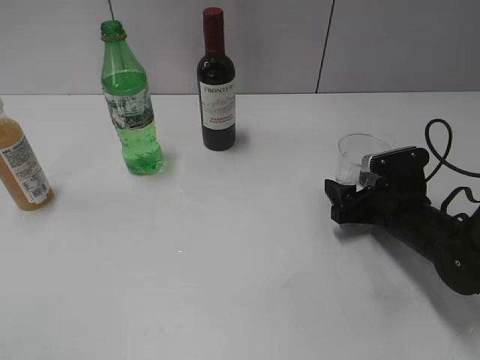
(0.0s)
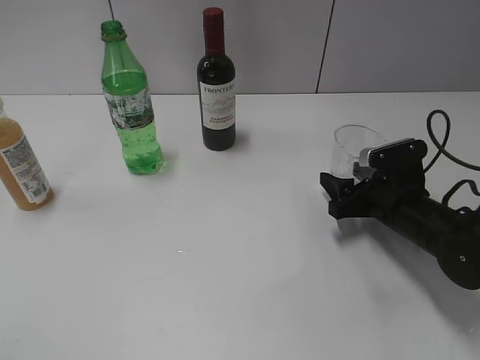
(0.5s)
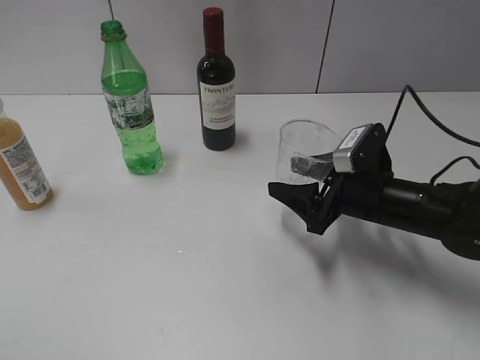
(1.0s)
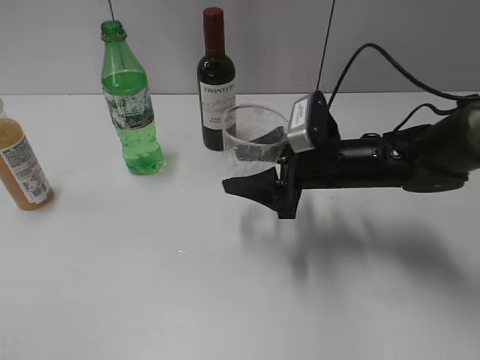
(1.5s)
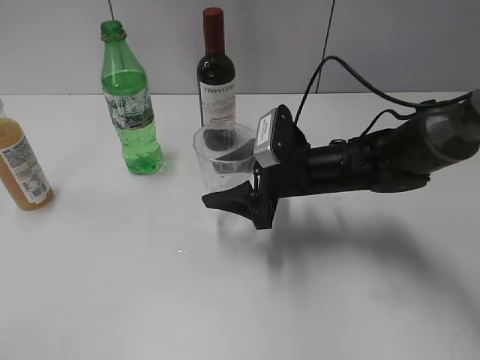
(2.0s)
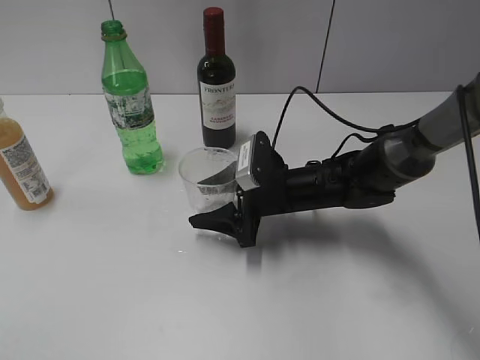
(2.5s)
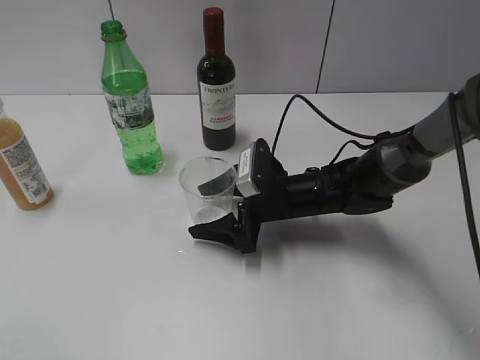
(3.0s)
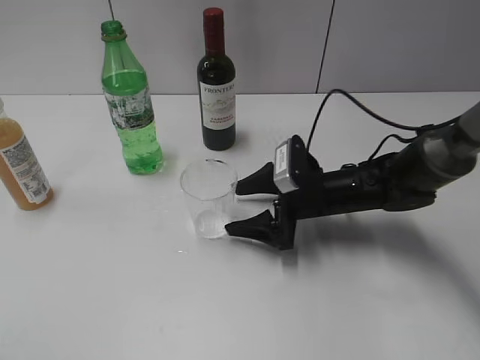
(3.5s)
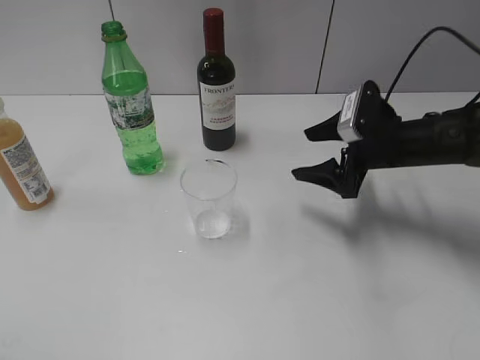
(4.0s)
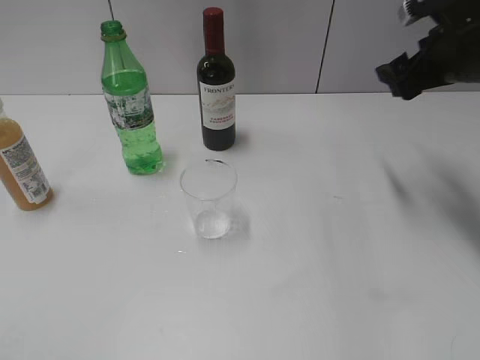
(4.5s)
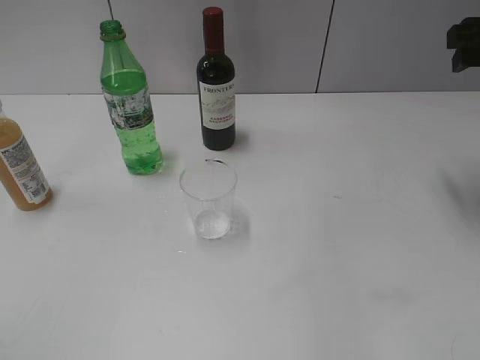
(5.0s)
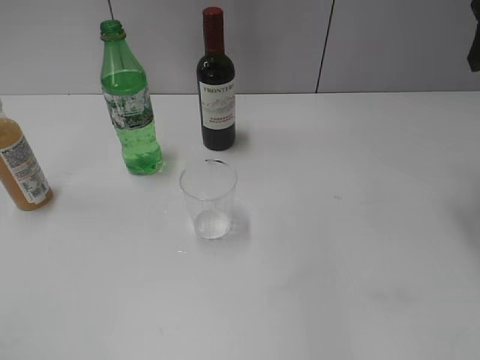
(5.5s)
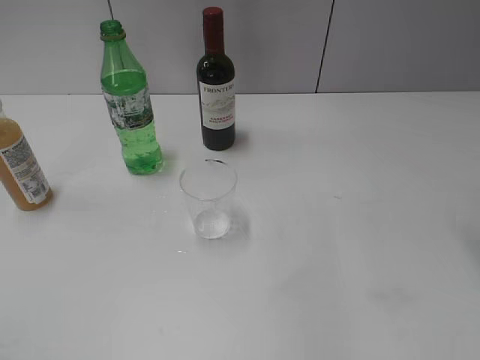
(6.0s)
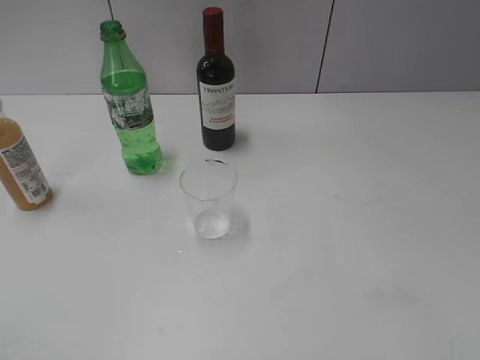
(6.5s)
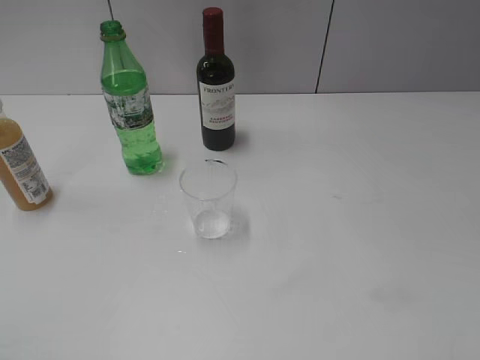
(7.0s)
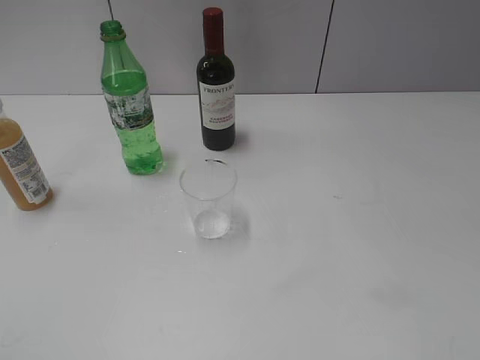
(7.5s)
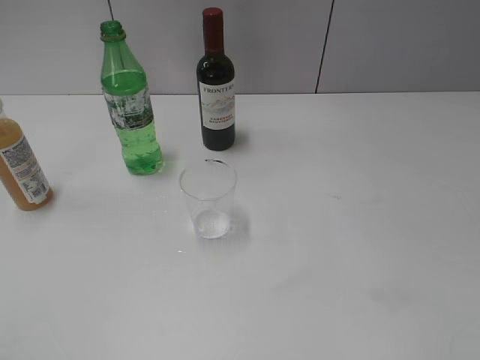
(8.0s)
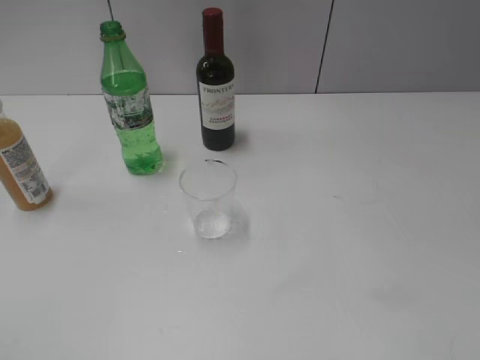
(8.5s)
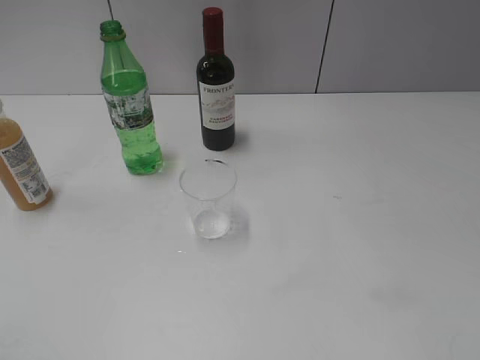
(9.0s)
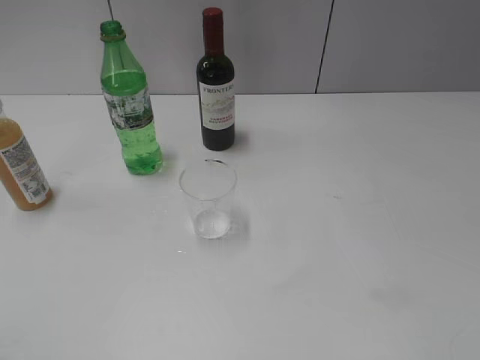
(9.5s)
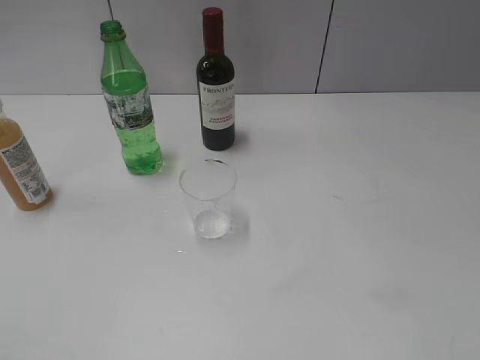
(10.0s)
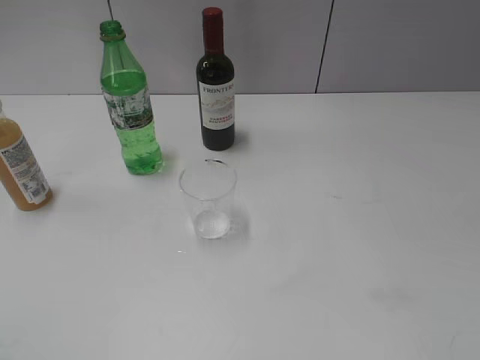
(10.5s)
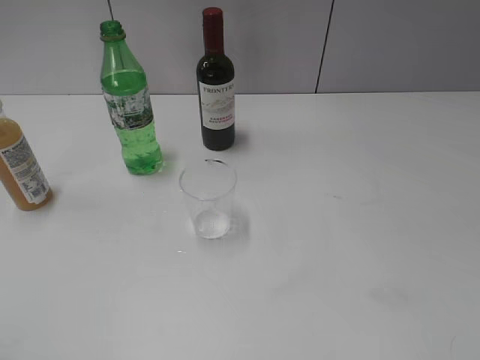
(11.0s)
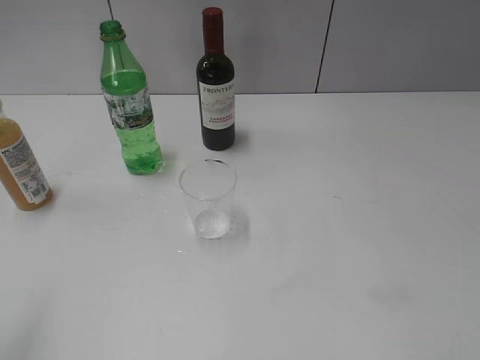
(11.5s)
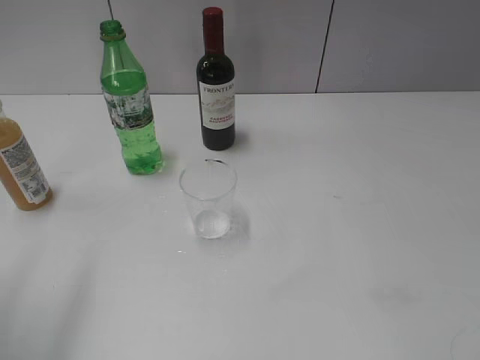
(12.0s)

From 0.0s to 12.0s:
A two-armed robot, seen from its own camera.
Step, from 0.5s to 3.5s: Place the transparent cup on the table with right gripper.
From 0.0s to 2.0s: The right gripper goes about 15 cm to the left and upward.
From 2.0s to 4.0s: The right gripper is displaced to the right by some 10 cm, and opens.
From 4.0s to 6.0s: The right gripper shifts about 25 cm upward, and closes its fingers.
From 8.0s to 10.0s: Neither gripper changes place.
From 10.0s to 12.0s: The left gripper heads forward, covering about 15 cm, and opens up.

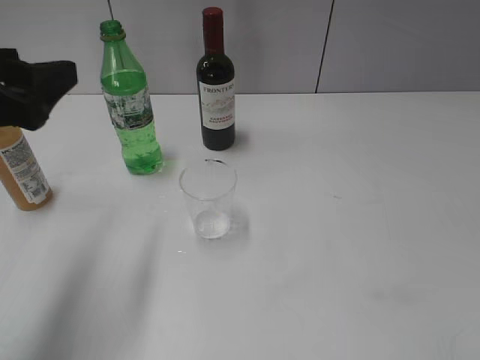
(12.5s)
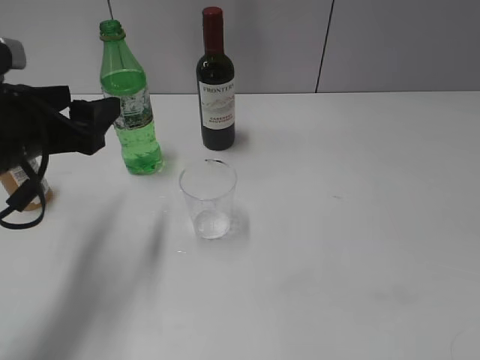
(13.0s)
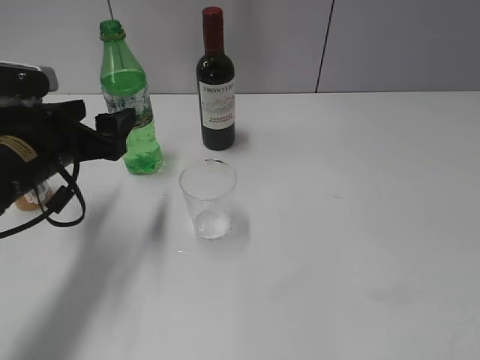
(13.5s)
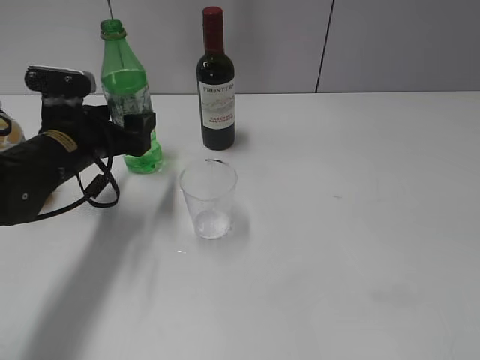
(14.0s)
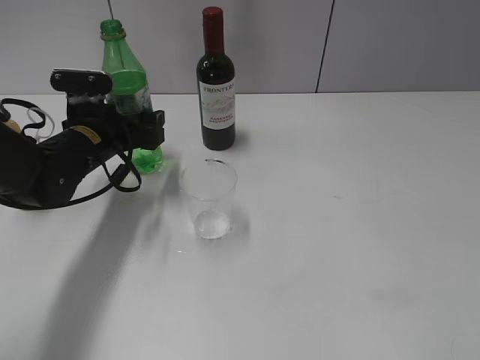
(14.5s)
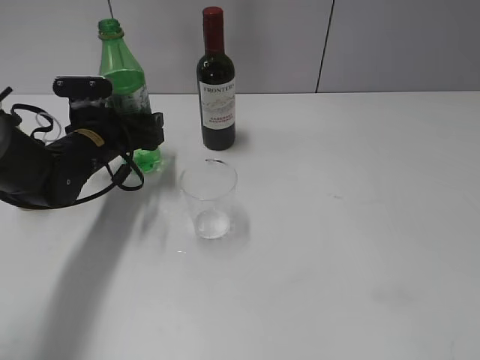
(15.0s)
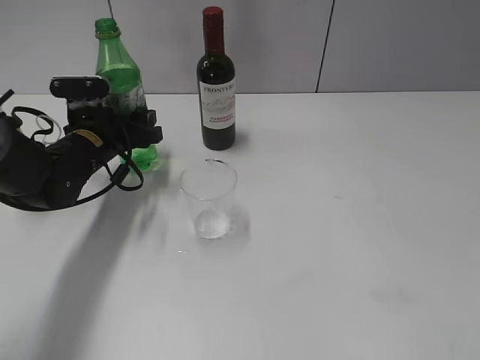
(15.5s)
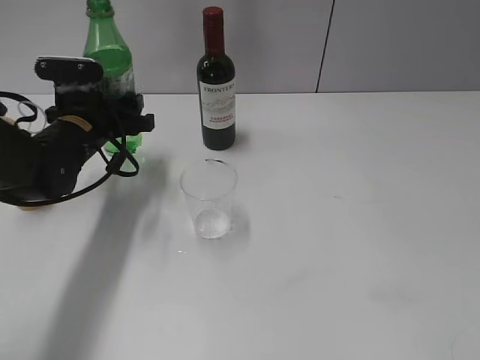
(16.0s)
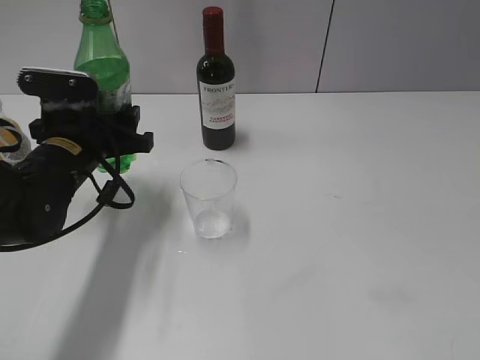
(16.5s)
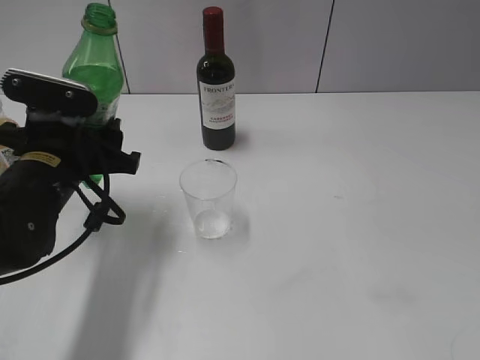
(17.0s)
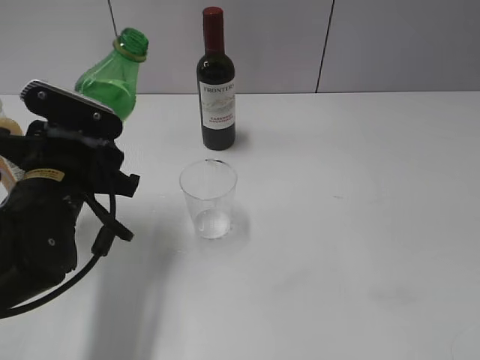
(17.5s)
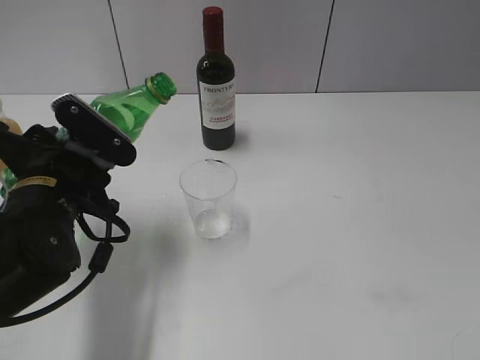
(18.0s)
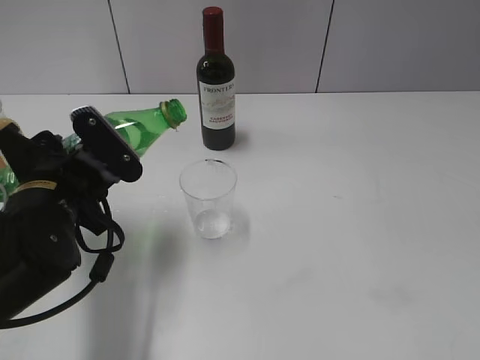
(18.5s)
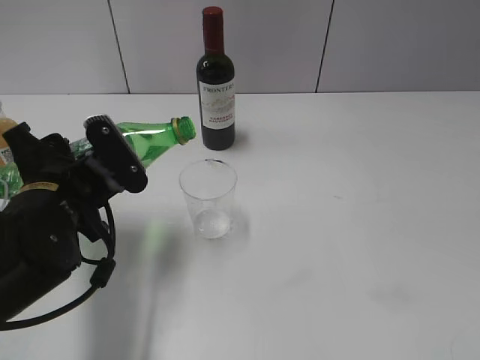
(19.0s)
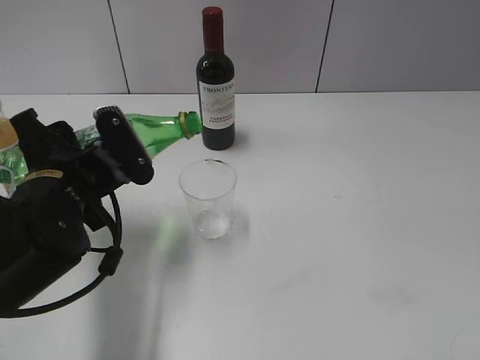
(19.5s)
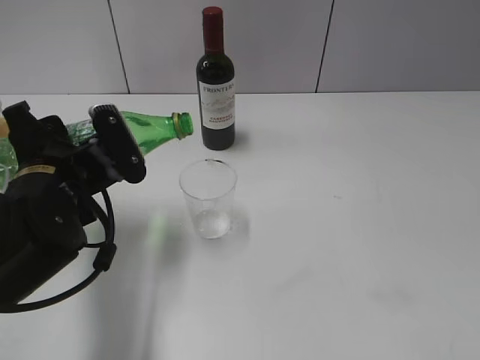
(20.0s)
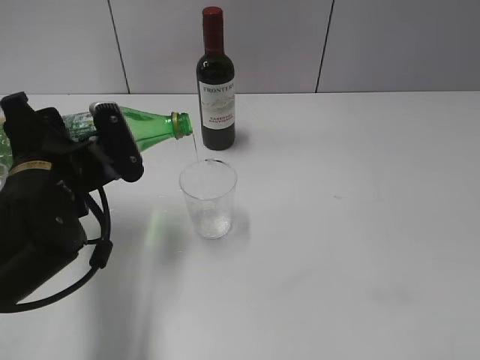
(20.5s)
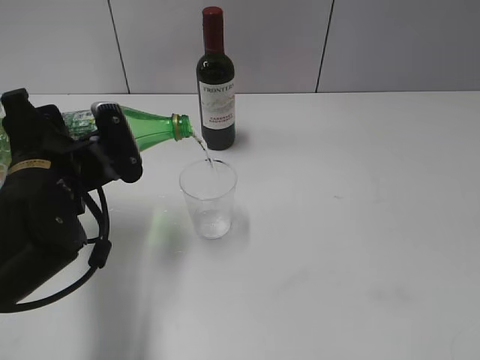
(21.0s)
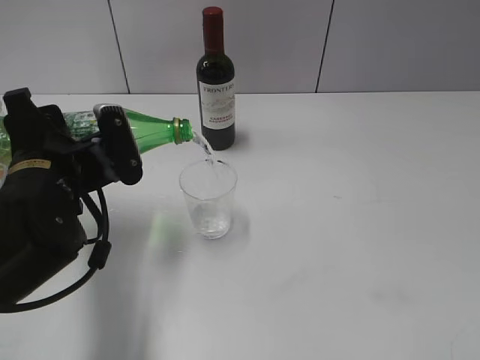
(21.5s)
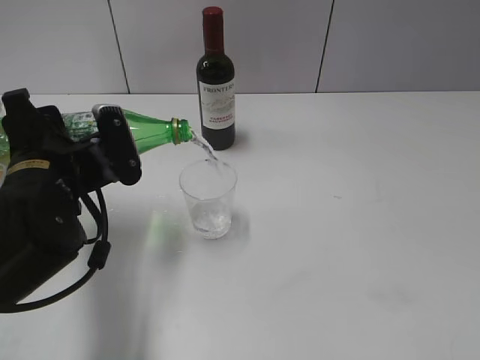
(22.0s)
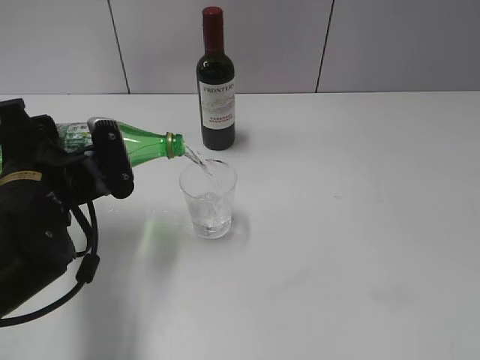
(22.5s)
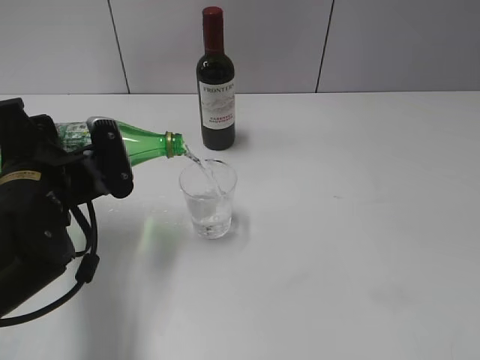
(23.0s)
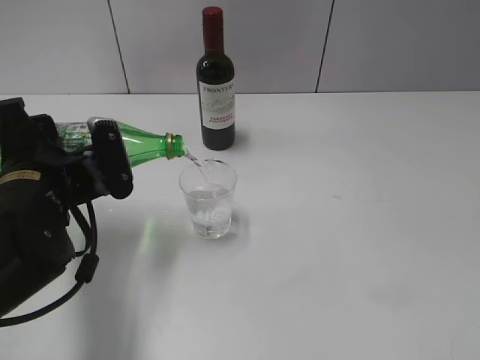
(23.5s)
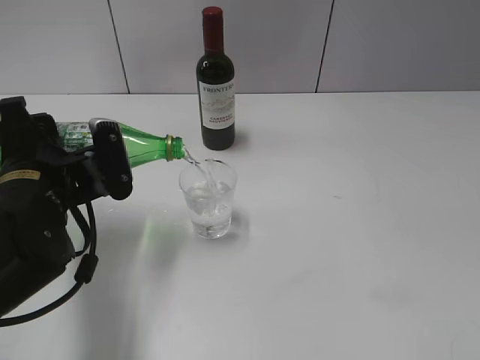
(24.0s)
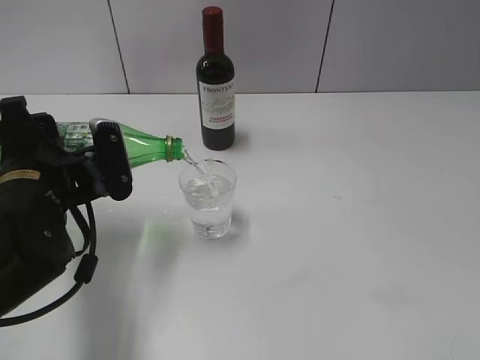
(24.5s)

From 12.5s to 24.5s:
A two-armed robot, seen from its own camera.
Step, from 12.5s to 15.0s: Grasp the bottle with sprite with left gripper.
From 12.5s to 14.5s: The left gripper heads forward and downward, covering roughly 20 cm.
From 14.5s to 16.5s: The left gripper travels backward by approximately 5 cm, and closes its fingers.
From 16.5s to 18.5s: The left gripper travels backward by some 10 cm.
From 18.5s to 20.5s: The grippers stay close to where they were, moving slightly.
From 20.5s to 22.5s: The grippers stay close to where they were, moving slightly.
From 22.5s to 24.5s: Neither gripper changes place.

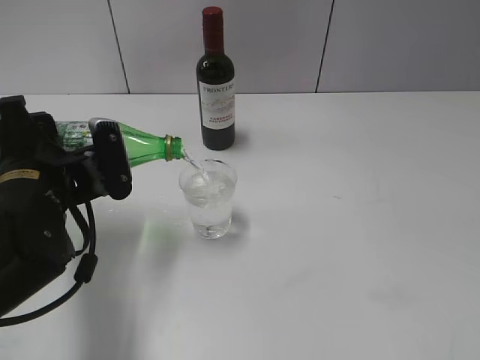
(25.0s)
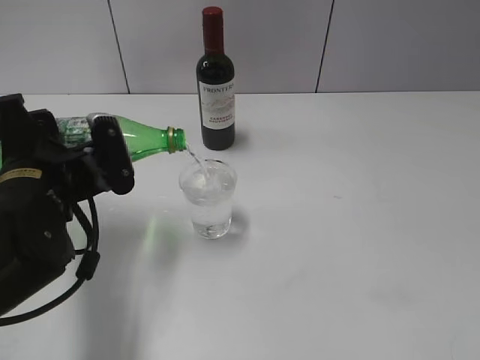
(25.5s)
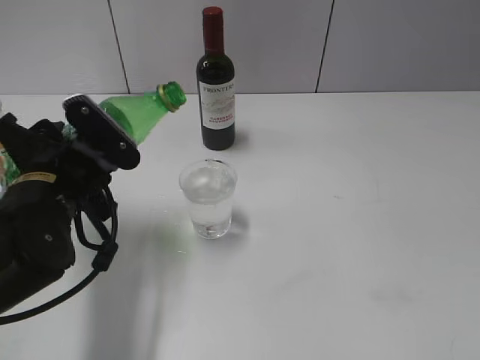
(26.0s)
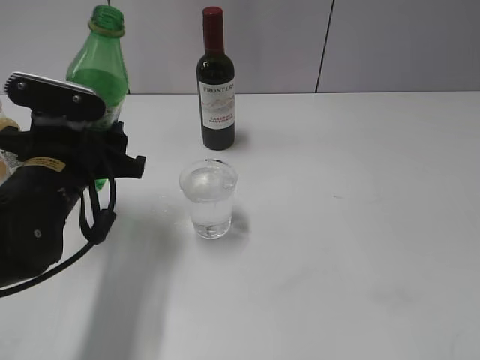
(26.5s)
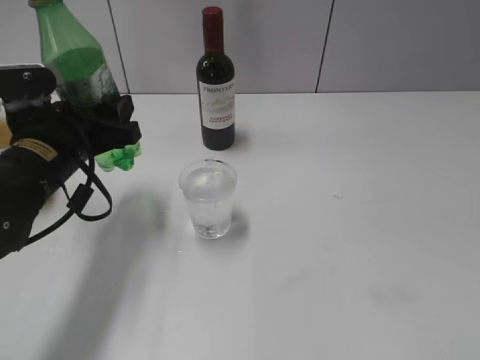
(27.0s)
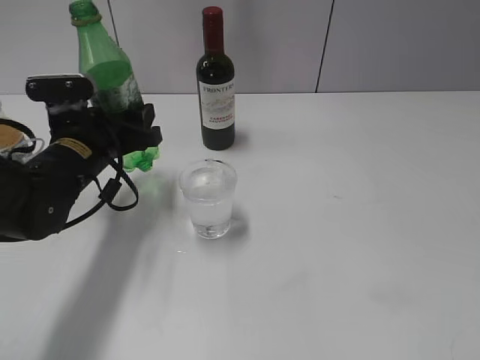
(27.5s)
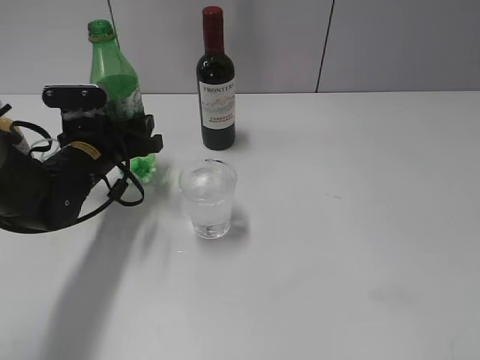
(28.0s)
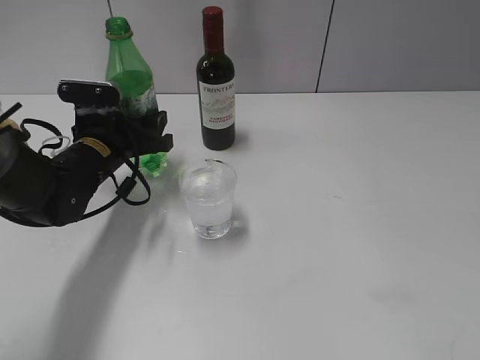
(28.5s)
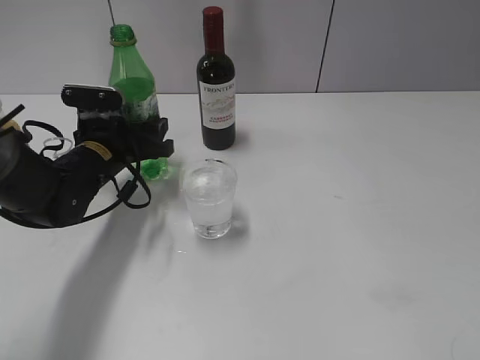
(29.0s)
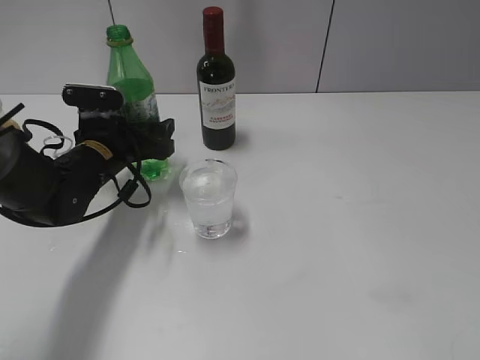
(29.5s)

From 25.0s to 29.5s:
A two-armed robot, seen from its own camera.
From 25.0s to 27.0s: The left gripper moves forward, some 5 cm.
From 27.0s to 29.5s: The left gripper moves forward and downward, some 10 cm, and opens its fingers.
